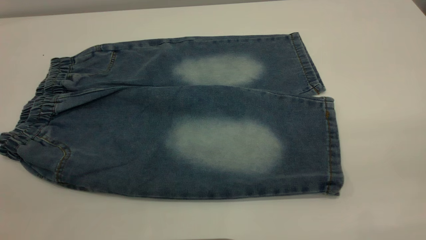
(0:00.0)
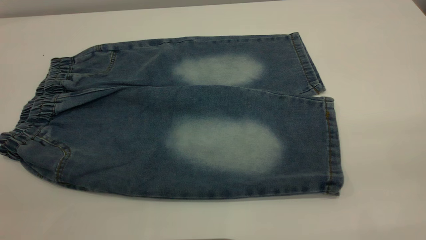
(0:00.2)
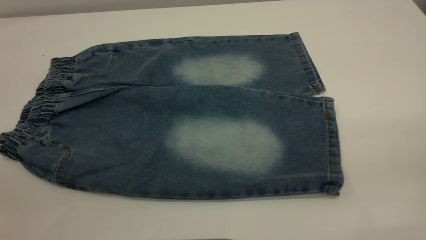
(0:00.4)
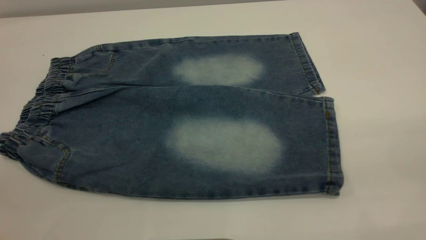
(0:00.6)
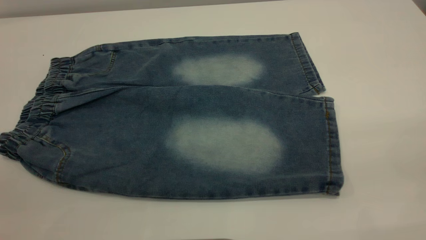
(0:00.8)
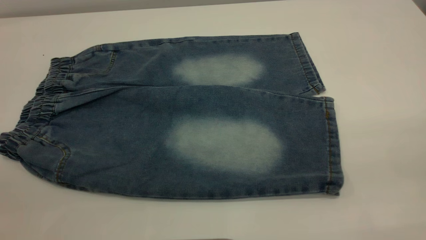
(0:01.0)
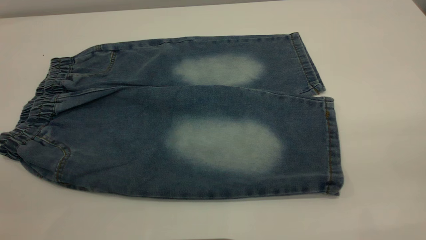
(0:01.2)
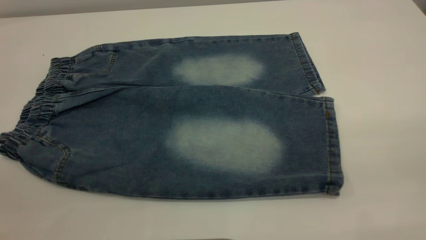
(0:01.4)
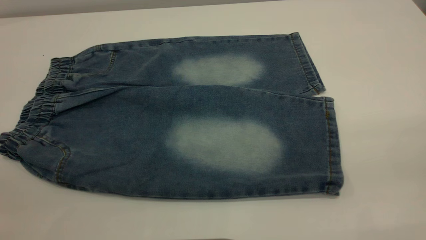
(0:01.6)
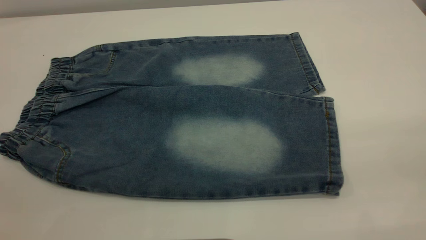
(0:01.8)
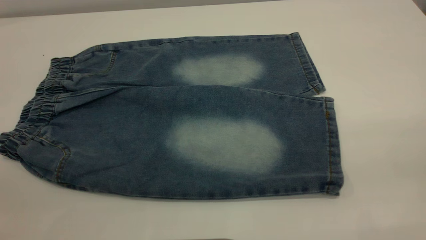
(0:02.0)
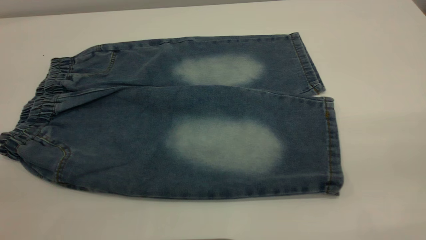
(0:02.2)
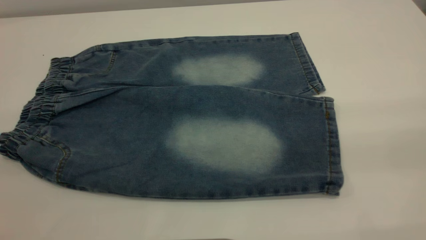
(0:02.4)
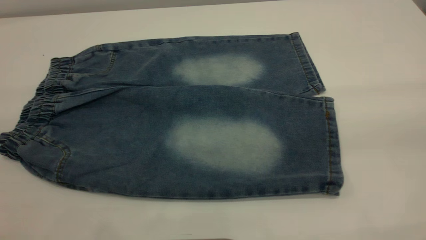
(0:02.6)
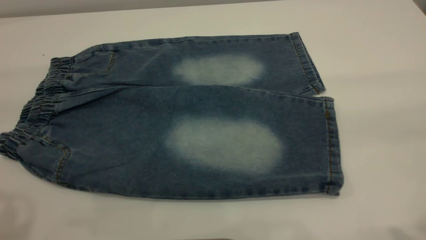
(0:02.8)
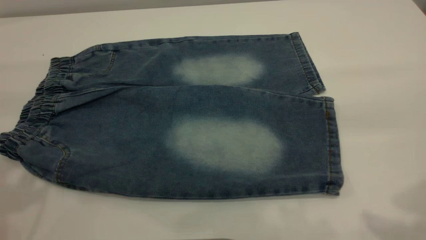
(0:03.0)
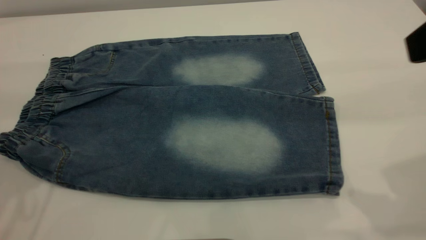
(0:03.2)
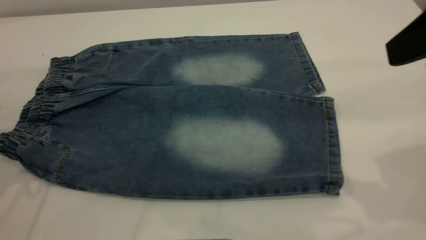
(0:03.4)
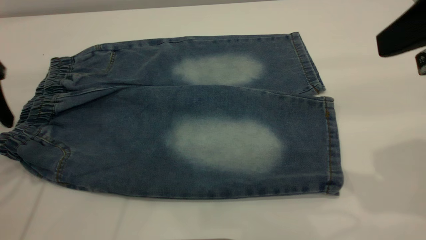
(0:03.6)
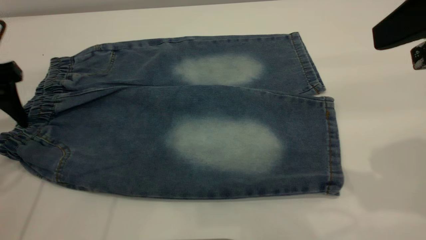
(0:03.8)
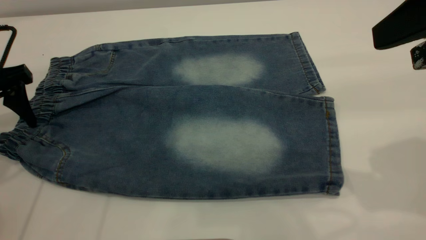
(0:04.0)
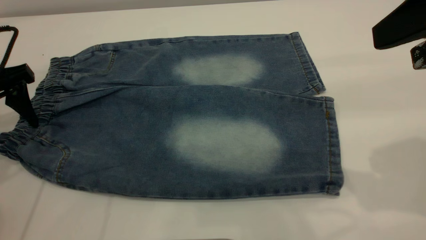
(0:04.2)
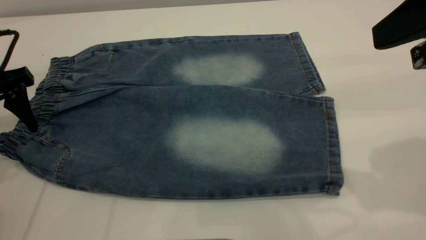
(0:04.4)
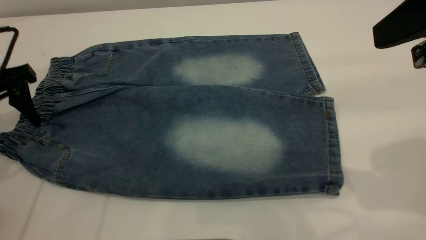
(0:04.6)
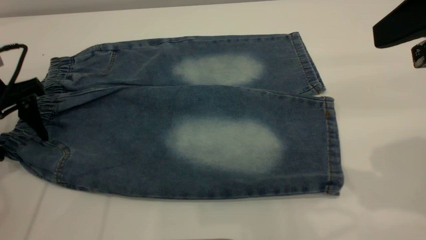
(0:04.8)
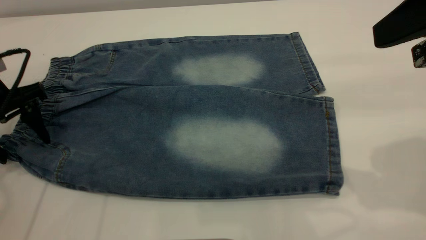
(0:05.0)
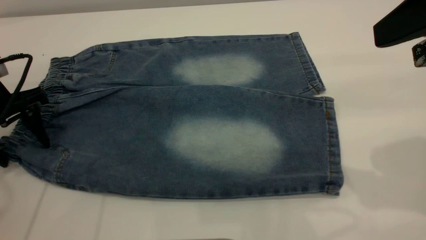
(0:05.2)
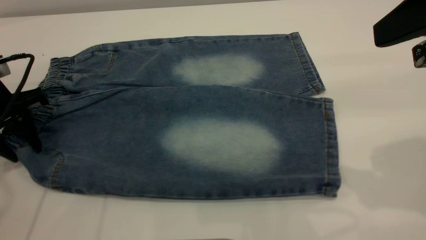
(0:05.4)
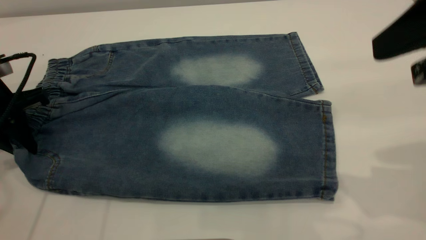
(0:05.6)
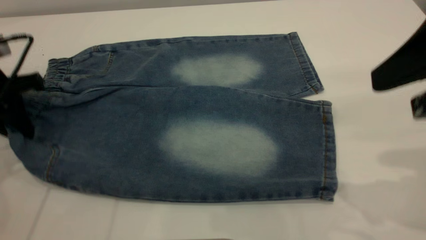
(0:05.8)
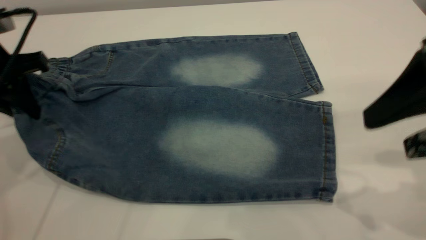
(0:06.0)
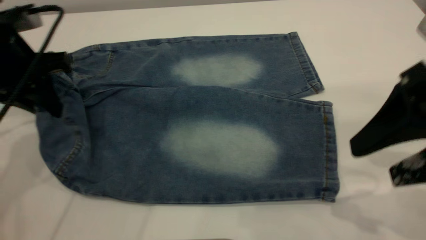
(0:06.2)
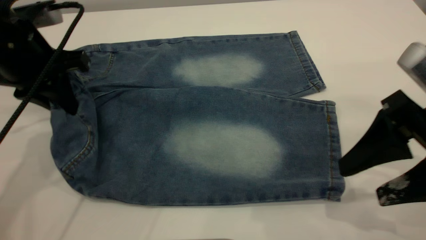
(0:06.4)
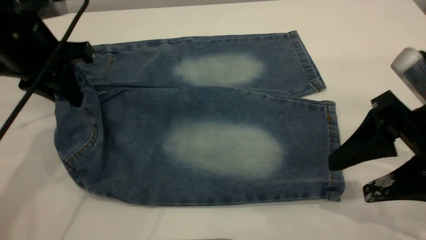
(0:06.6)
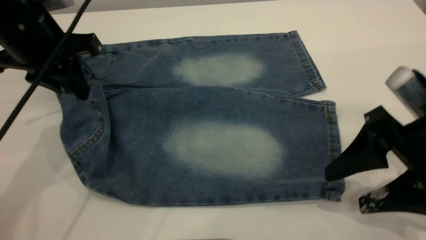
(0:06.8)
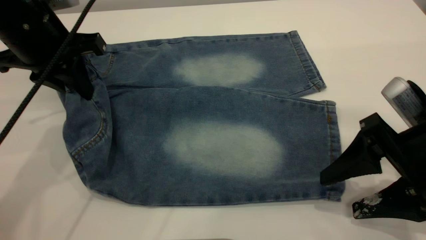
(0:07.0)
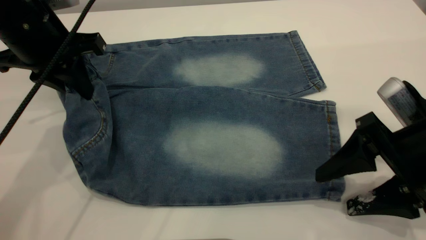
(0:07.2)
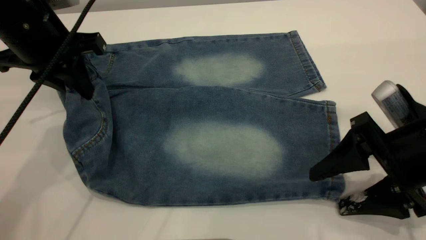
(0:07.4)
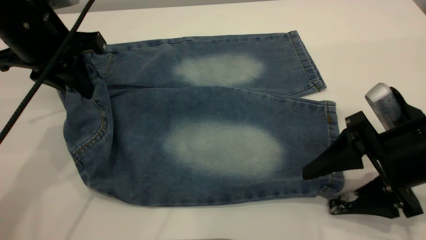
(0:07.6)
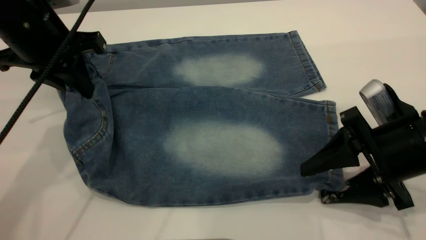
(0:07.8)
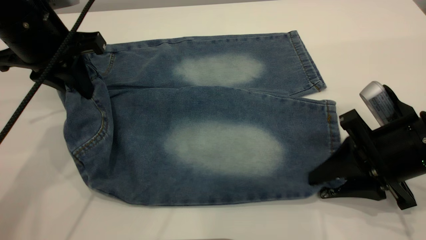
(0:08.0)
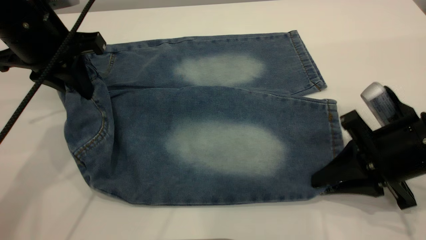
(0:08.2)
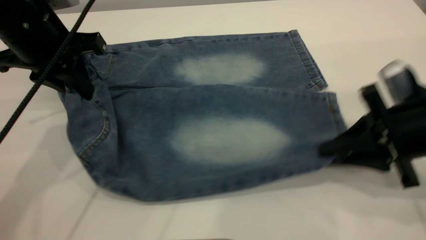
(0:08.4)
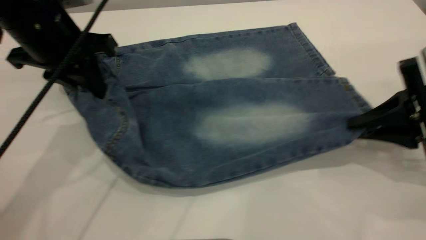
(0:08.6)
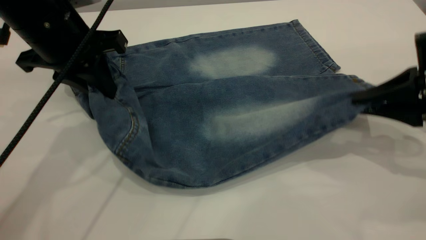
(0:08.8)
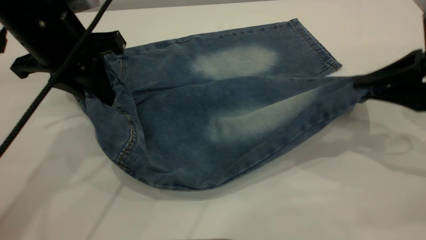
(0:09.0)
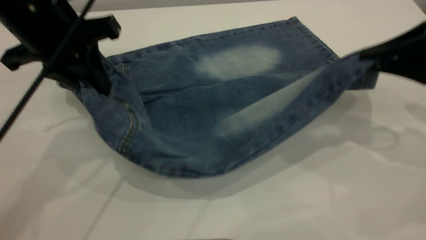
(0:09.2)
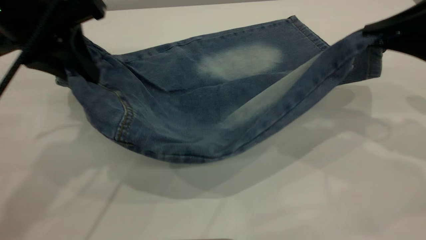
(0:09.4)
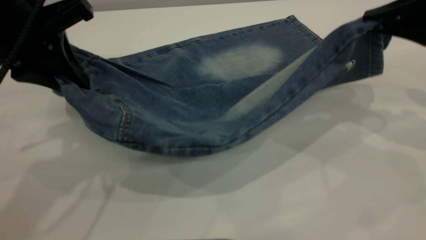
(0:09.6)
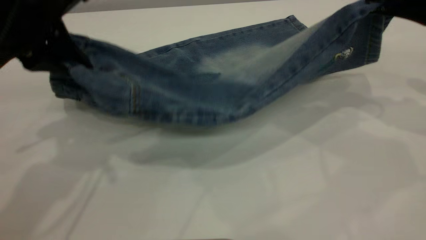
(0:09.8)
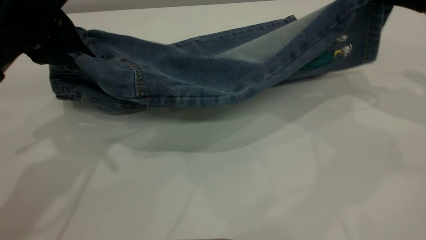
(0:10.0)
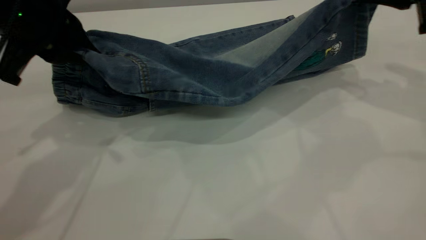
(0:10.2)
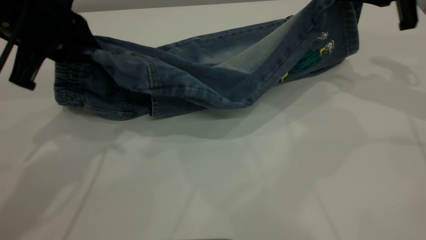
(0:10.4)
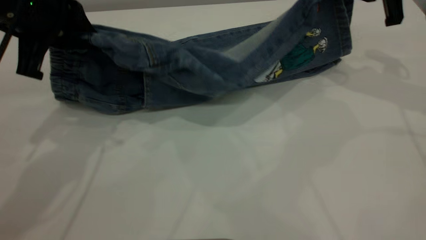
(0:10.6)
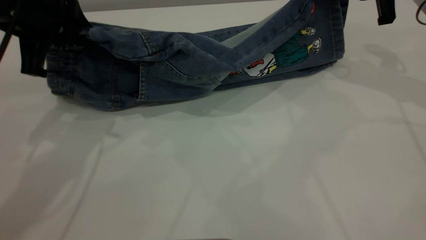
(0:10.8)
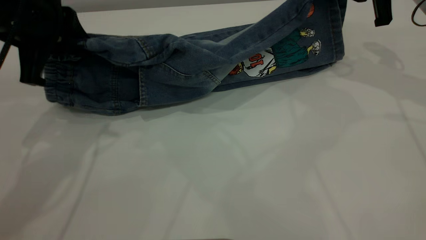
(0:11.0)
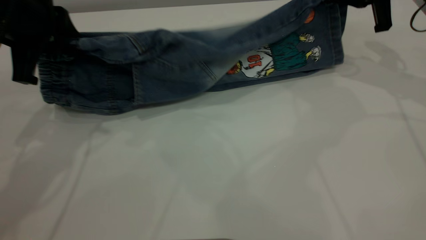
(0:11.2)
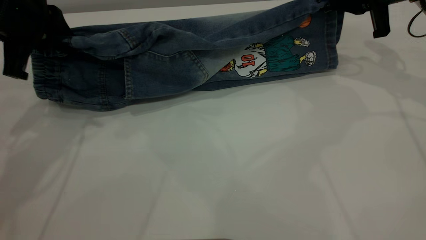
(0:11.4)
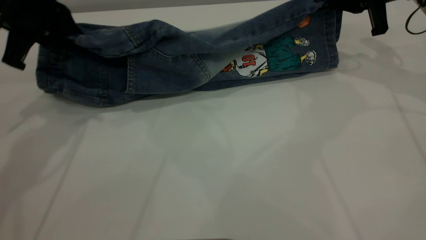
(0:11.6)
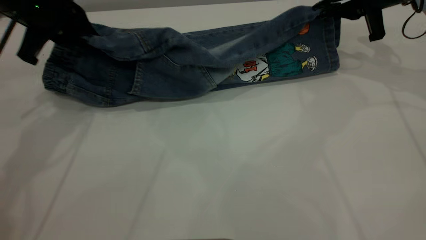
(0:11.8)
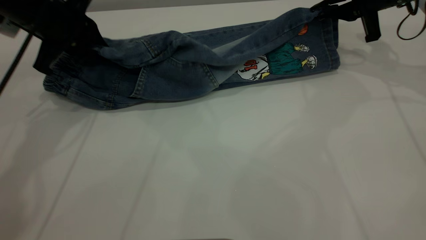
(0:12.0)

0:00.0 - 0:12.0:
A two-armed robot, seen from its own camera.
0:00.0 - 0:01.6: Neither gripper changes place.
0:03.0 - 0:04.4: The right gripper heads forward, covering approximately 5 cm. Meanwhile the left gripper moves downward and forward, approximately 20 cm.
0:04.4 - 0:06.0: The left gripper closes its fingers. The right gripper shifts some 5 cm downward.
0:06.0 - 0:07.6: The left gripper moves to the right, roughly 5 cm, while the right gripper heads downward, covering roughly 15 cm.
0:07.6 - 0:09.0: The right gripper moves upward and to the right, some 10 cm, and closes its fingers.
0:09.0 - 0:10.4: The right gripper goes about 15 cm forward and upward.
0:10.4 - 0:12.0: Both grippers travel together forward and downward, some 10 cm.

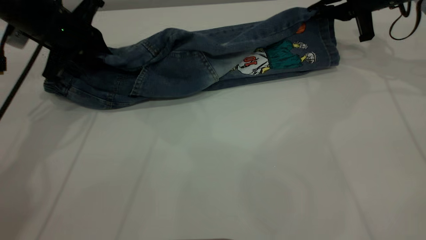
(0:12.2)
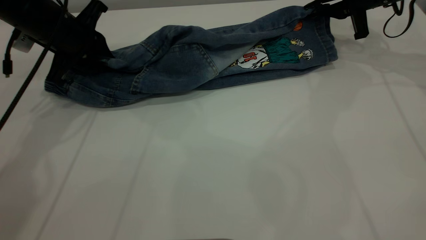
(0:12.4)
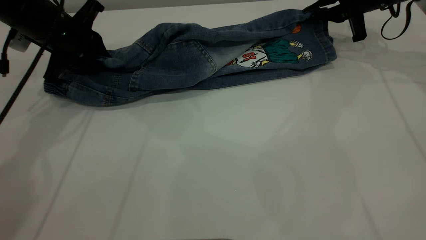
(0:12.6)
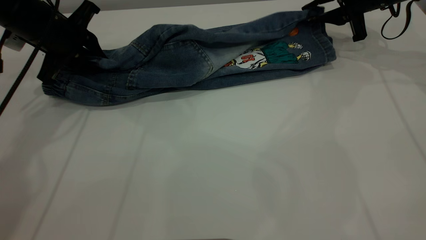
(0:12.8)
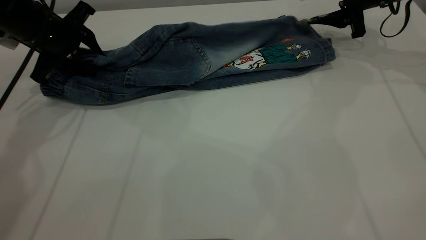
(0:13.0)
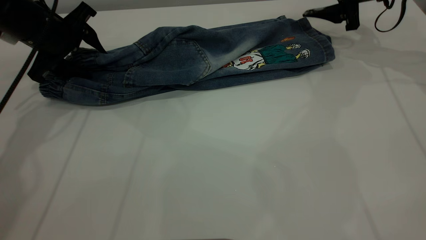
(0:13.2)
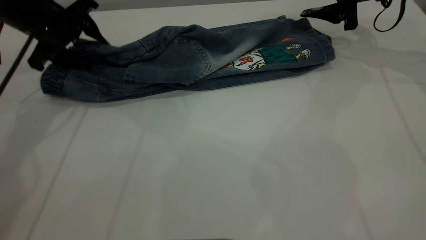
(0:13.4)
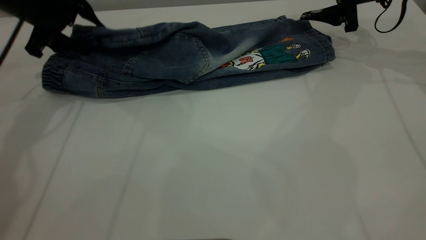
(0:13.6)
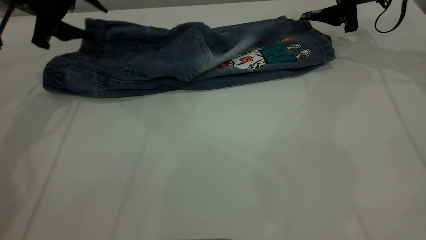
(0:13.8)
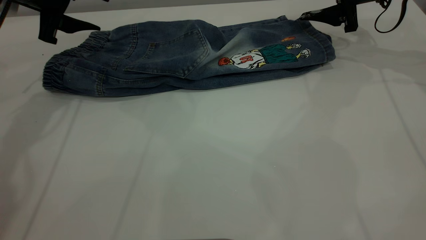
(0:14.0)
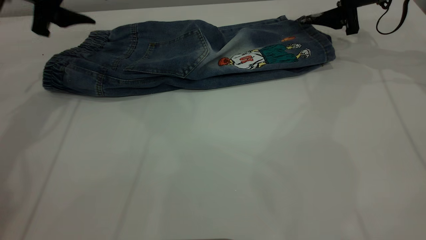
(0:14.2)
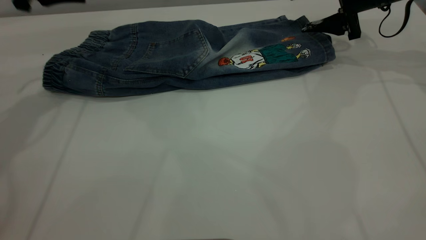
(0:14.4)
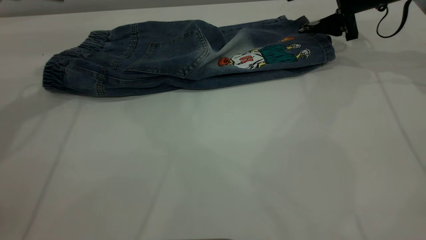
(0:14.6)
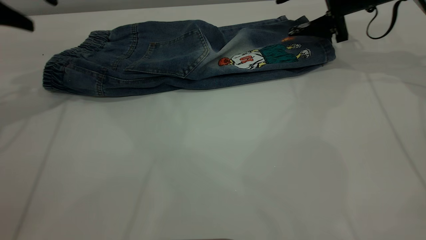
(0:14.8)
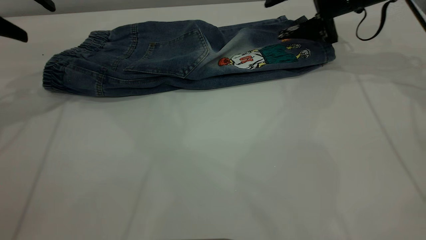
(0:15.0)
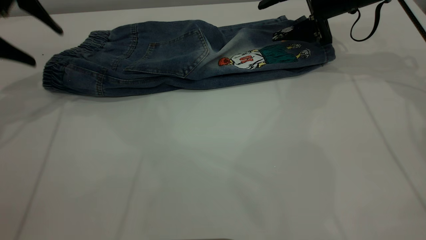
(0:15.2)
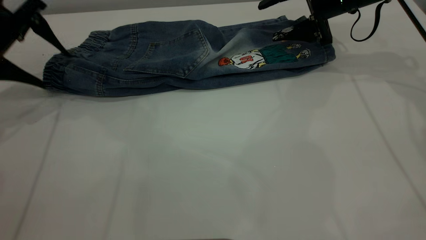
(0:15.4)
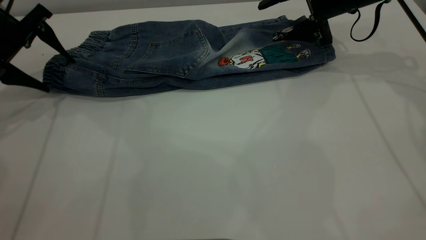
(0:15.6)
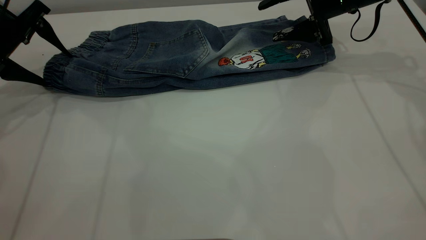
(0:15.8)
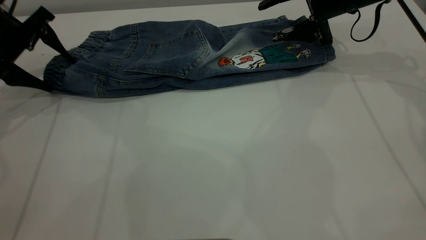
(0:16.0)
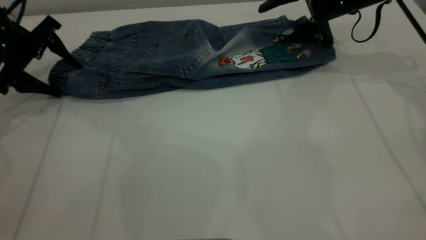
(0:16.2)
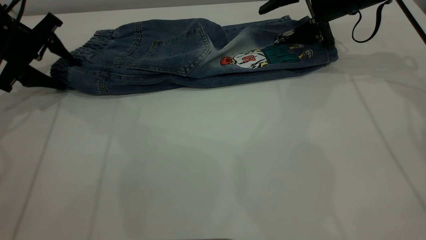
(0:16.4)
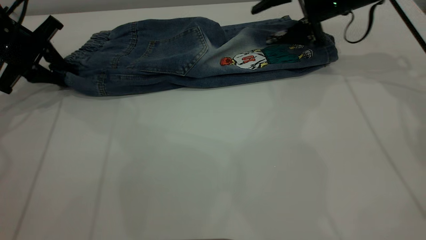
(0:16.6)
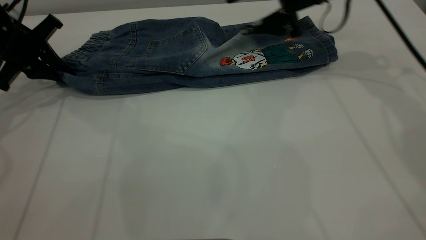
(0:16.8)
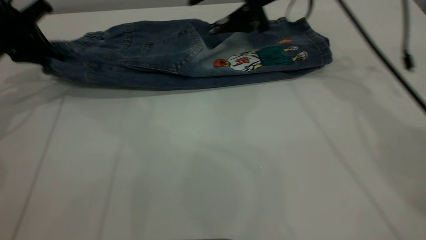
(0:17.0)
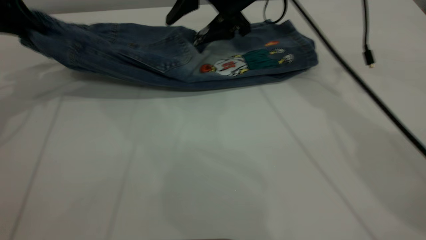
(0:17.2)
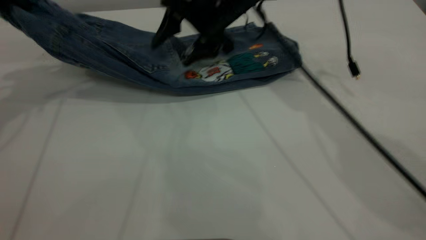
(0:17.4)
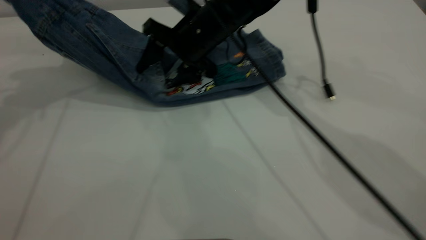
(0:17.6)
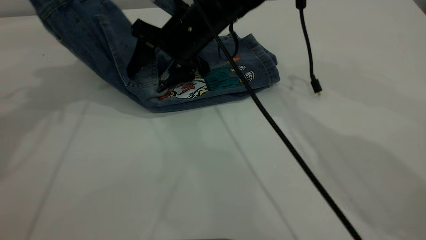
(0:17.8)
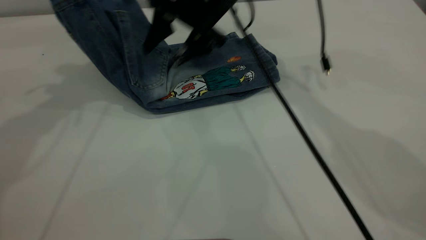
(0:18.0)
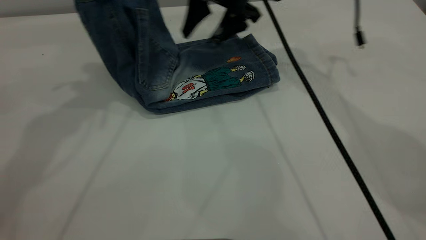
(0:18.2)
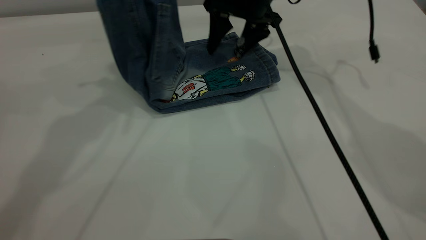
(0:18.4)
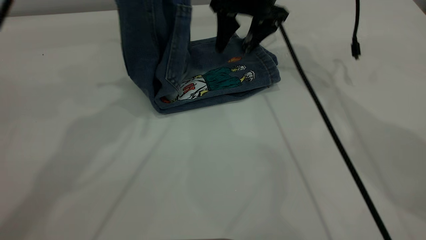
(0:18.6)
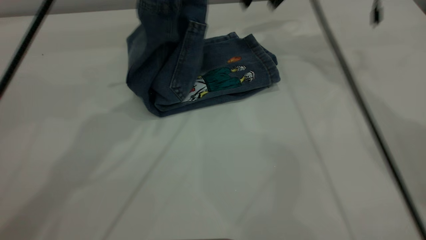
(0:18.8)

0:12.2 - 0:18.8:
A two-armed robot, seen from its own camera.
Step, 0:12.2 - 0:14.2: Fold the bottom of the pants upward.
0:12.2 - 0:13.8: The left gripper moves about 5 cm, and opens, while the right gripper opens.
0:13.8 - 0:15.4: Both grippers move to the left, roughly 5 cm. The left gripper goes upward and returns, approximately 5 cm each way.
0:15.4 - 0:17.2: The right gripper travels to the left by approximately 15 cm, while the left gripper travels upward by some 5 cm, and closes up.
0:17.2 - 0:18.8: The right gripper goes approximately 15 cm to the right, upward and forward. The left gripper goes roughly 20 cm to the right.
